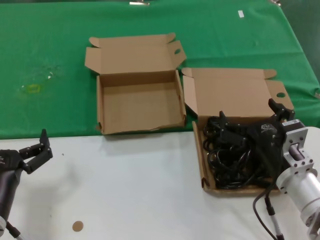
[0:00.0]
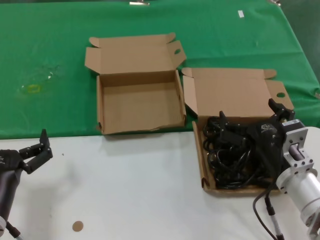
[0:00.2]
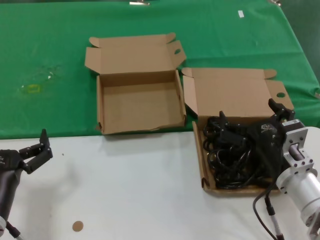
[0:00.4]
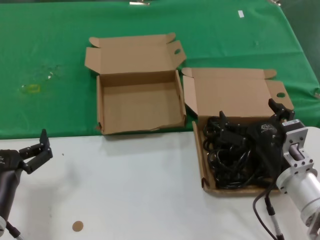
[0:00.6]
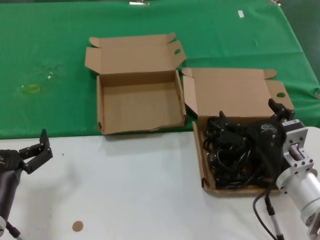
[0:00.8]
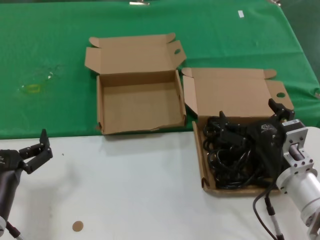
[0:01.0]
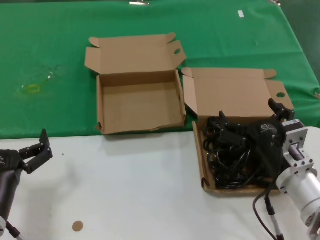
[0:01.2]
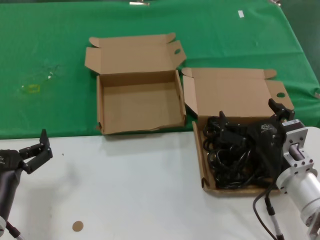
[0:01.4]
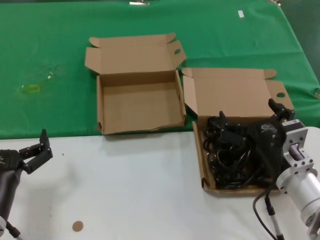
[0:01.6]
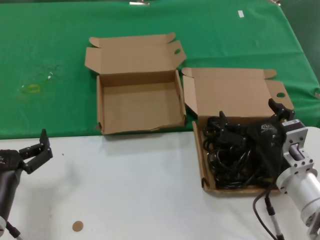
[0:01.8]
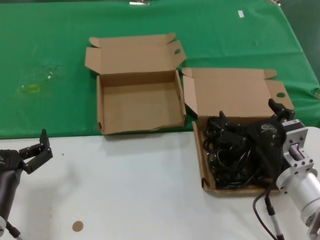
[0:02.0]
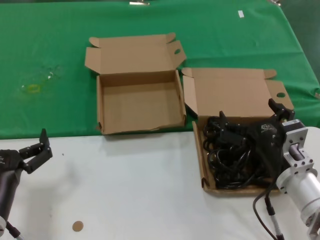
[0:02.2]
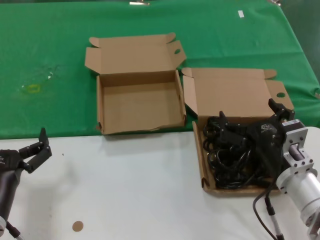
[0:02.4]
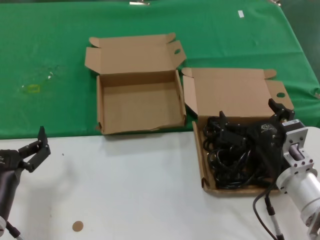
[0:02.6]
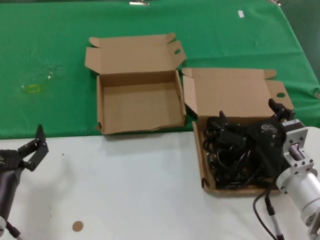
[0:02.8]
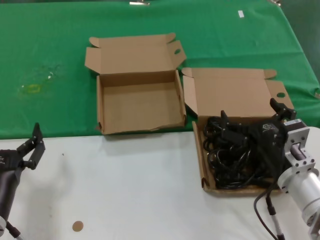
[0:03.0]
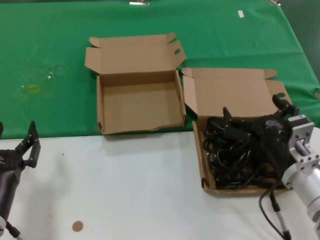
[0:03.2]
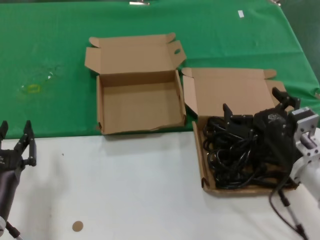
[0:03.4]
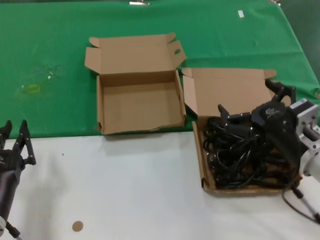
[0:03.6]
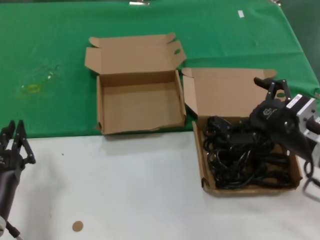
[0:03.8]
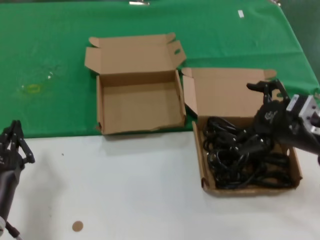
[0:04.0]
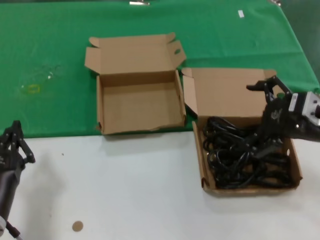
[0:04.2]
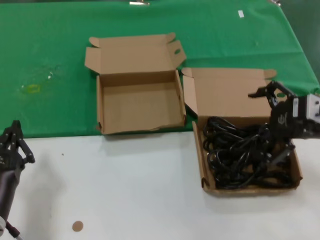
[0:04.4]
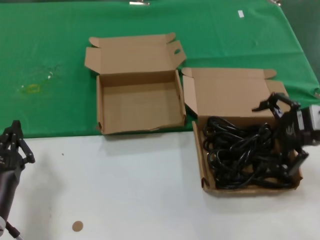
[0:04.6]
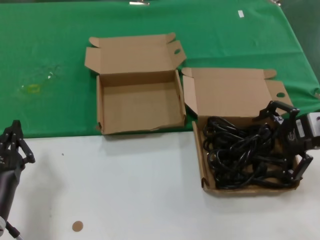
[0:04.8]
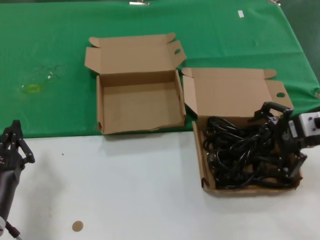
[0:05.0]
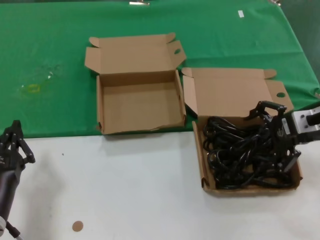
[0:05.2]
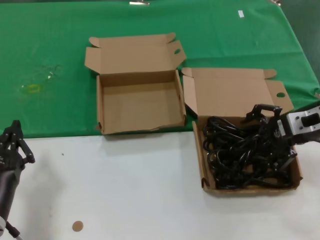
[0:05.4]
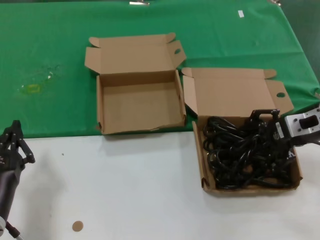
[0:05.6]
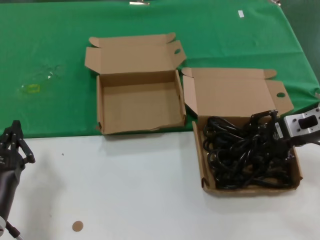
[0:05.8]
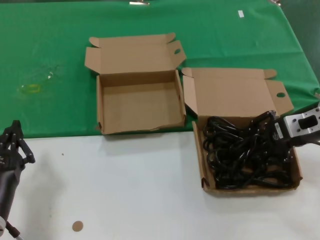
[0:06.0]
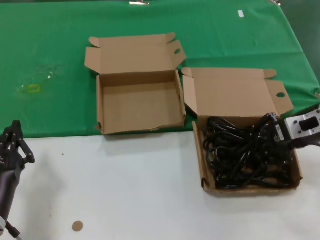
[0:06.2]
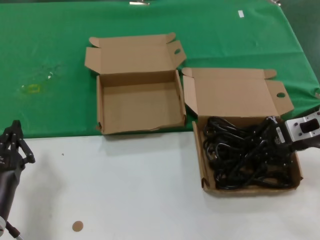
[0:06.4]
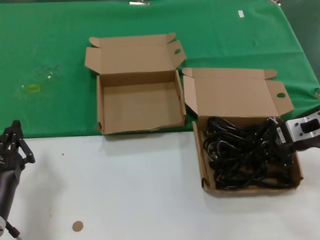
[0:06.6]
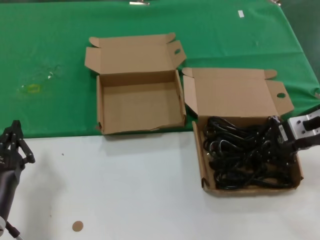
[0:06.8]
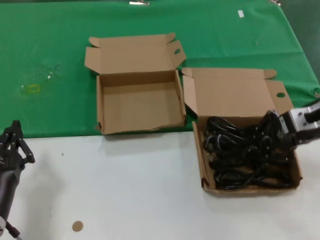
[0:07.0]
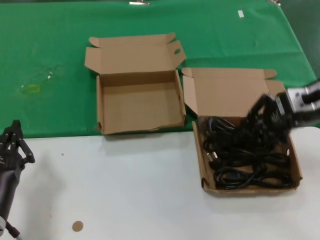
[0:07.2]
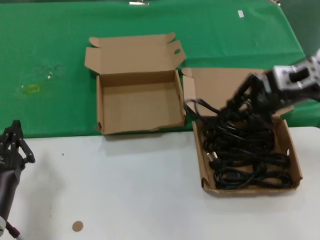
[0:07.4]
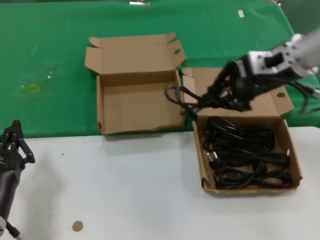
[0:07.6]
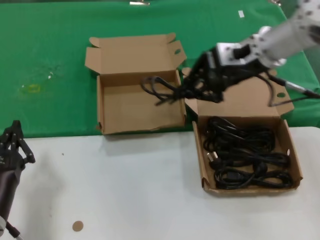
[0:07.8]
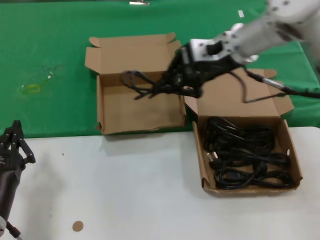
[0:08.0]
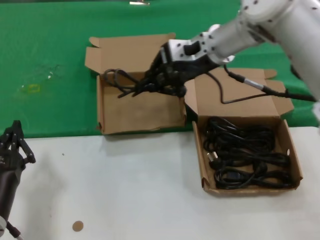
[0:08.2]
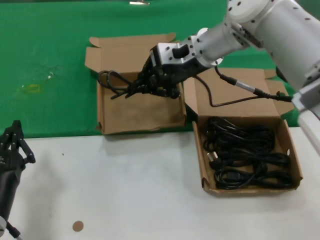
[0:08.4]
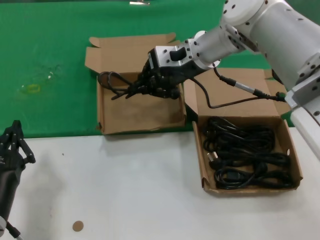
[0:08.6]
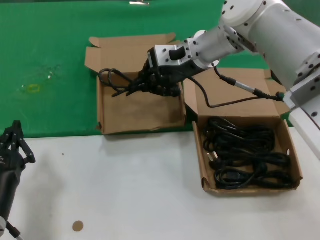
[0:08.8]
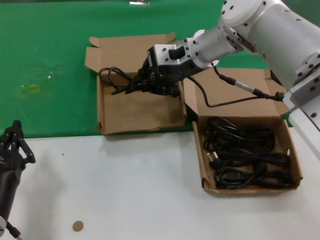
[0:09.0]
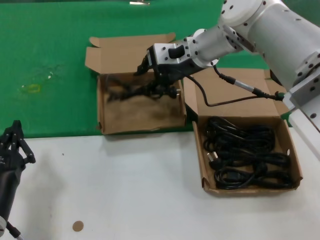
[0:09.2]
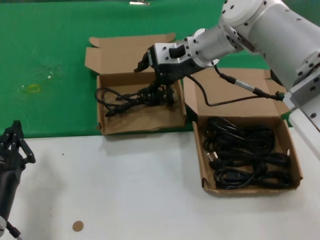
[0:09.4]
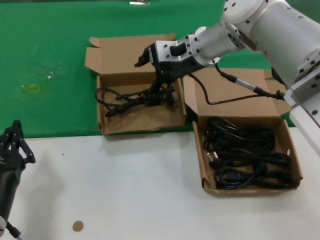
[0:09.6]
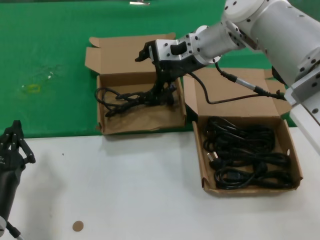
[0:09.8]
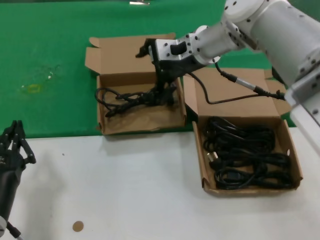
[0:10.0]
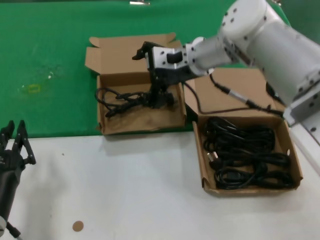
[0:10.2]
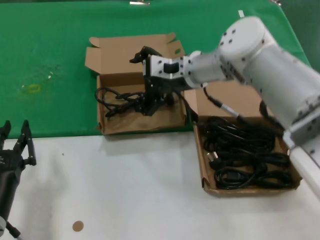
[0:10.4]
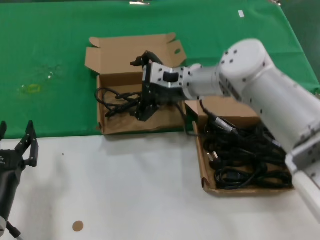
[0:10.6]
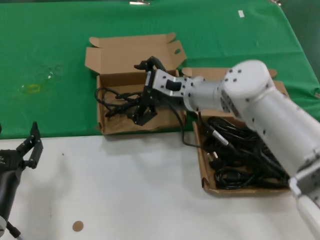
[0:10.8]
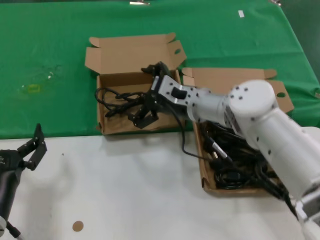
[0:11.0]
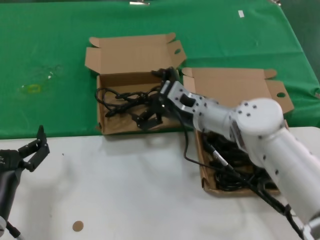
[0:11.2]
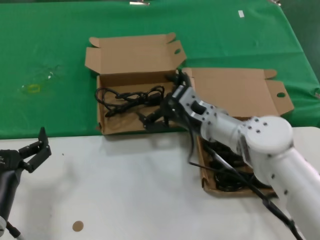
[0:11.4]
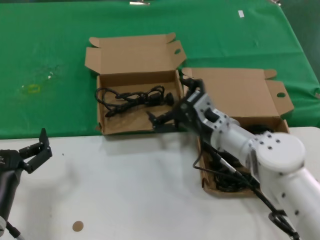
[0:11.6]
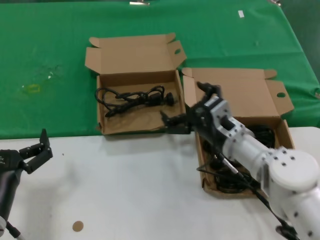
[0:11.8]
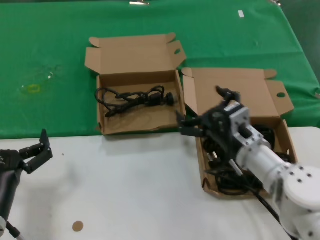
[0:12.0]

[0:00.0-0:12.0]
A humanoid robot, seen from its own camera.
Task of the whole recording: take the parts from the box containing them and put them into an empty box.
Step, 0:00.0 to 0:06.4: Grasp the data cable.
Step, 0:06.6 to 0:09.6: Place the data cable in the another box.
0:00.0 to 0:03.0: The two hands keep their place.
0:03.0 to 0:04.4: The right hand is displaced upward and to the right by some 20 cm.
0:04.4 to 0:06.0: The right hand goes roughly 5 cm forward.
0:06.0 to 0:07.6: The right hand goes approximately 15 cm upward and to the left.
0:07.6 to 0:09.0: The right hand heads to the left and forward, covering roughly 20 cm.
0:09.0 to 0:10.4: The right hand ends up about 5 cm from where it was.
0:10.4 to 0:12.0: The right hand shifts roughly 25 cm backward, downward and to the right.

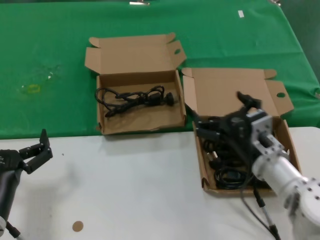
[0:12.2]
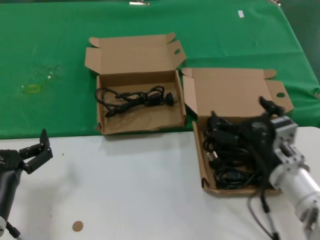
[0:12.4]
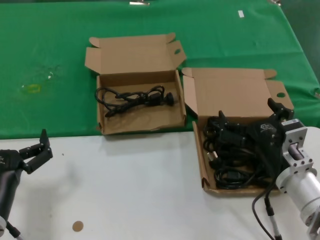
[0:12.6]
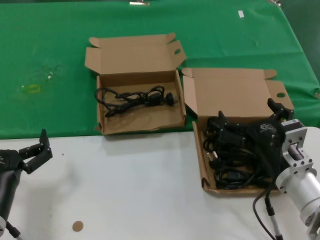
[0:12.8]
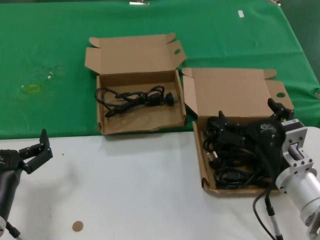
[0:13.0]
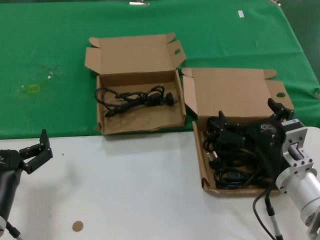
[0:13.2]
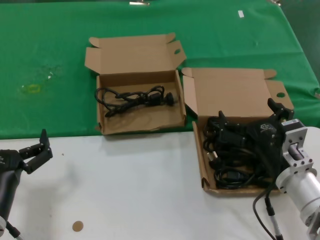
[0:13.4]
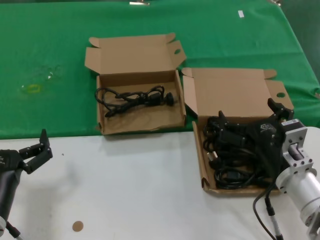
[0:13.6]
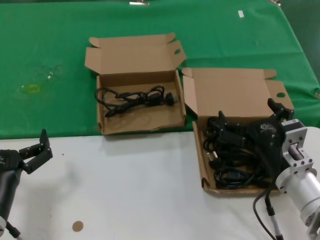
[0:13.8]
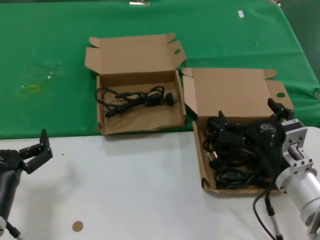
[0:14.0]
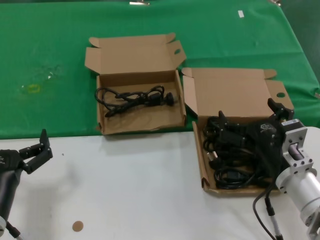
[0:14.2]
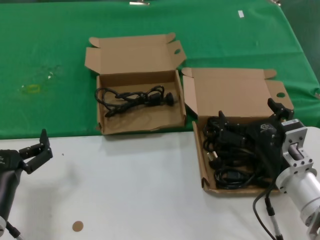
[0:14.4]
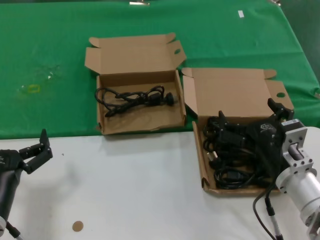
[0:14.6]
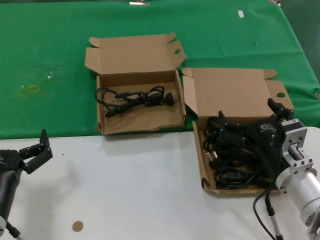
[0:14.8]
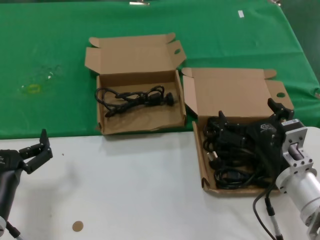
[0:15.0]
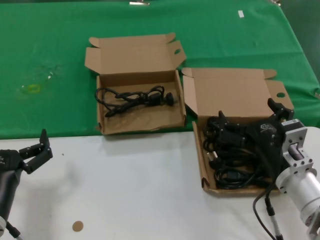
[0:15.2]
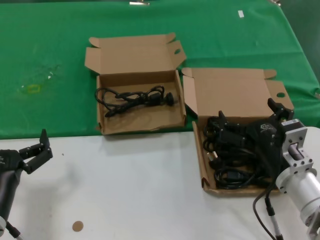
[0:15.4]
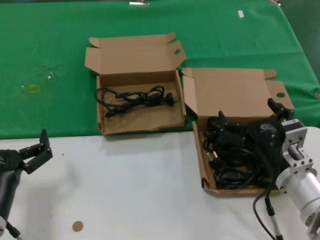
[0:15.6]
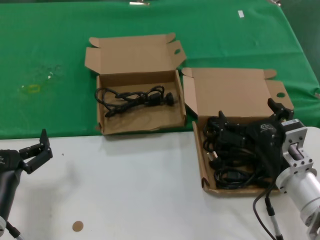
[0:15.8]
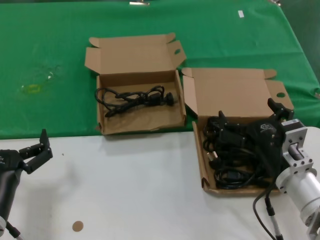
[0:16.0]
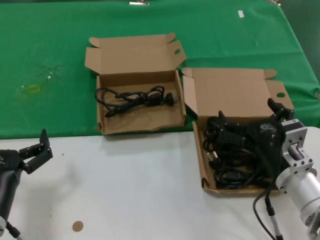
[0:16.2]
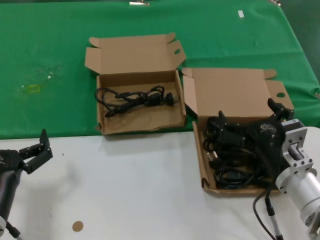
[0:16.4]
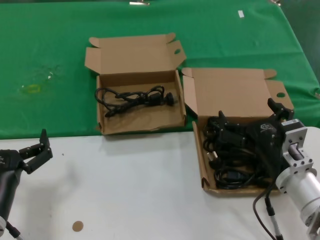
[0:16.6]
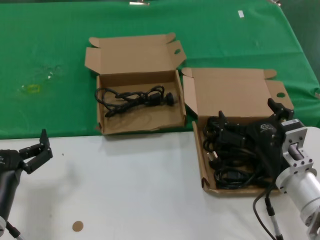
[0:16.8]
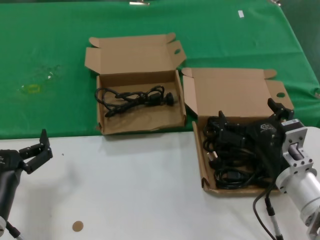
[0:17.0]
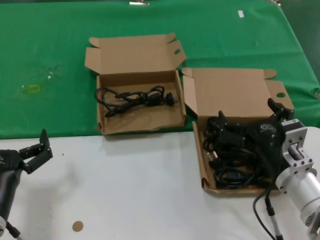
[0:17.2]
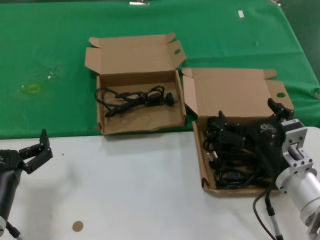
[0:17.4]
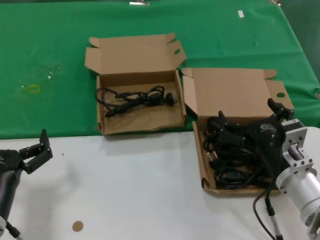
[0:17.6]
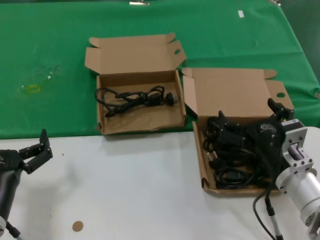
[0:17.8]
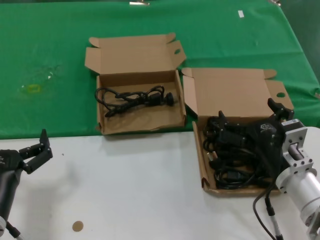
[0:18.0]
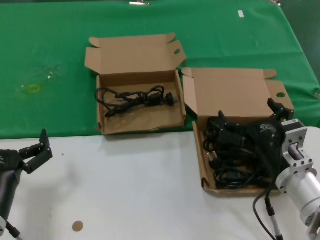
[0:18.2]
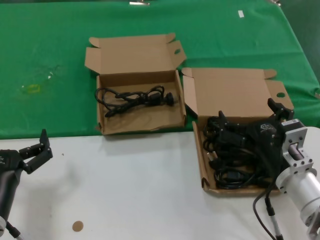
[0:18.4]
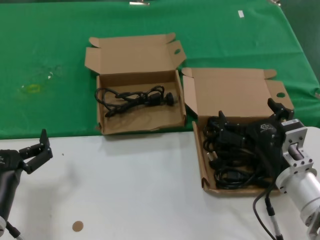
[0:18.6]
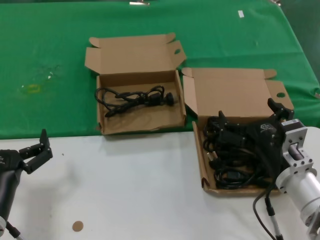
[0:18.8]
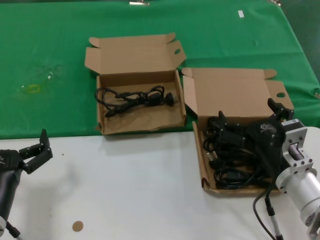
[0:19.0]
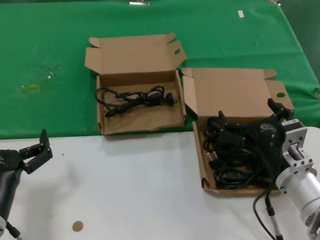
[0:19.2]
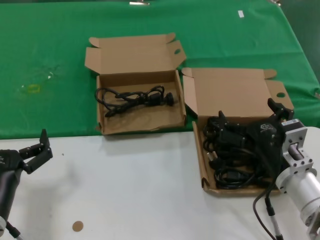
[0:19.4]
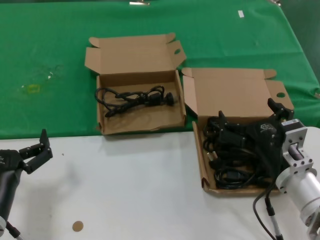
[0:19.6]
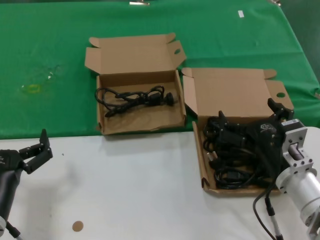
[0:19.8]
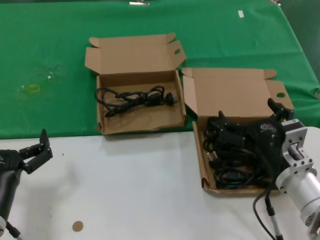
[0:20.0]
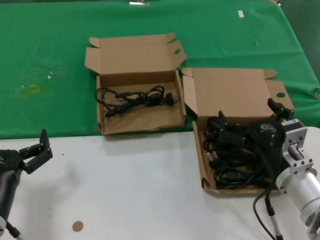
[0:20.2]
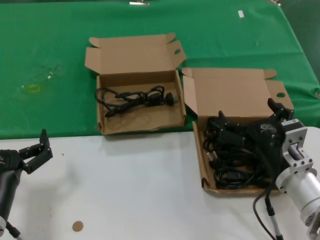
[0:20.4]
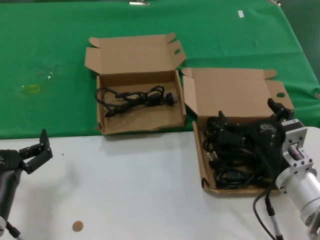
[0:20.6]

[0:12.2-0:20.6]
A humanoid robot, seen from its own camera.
Task of the whole recording: take the parts from the box containing them and put them into an empty box.
0:12.2 to 0:13.6: The right hand changes place by roughly 5 cm.
0:13.6 to 0:20.6: Both hands stay put.
